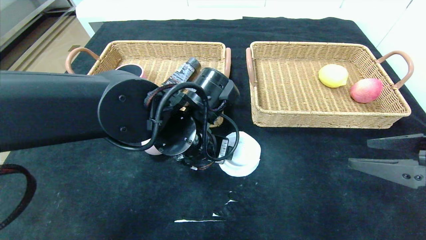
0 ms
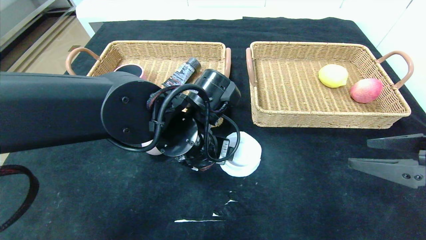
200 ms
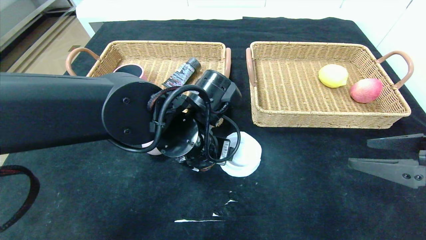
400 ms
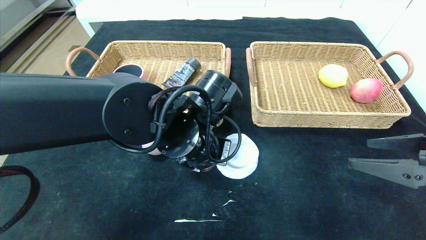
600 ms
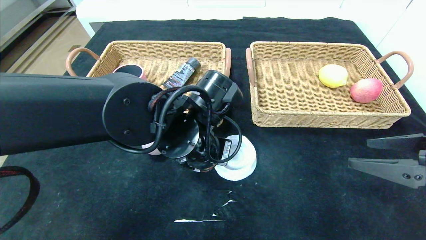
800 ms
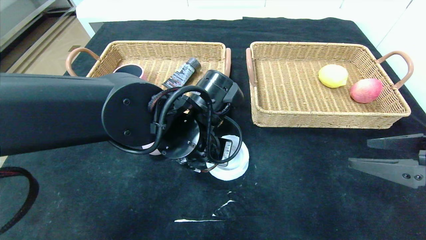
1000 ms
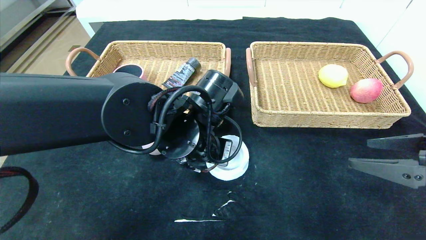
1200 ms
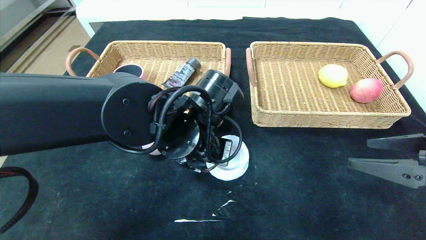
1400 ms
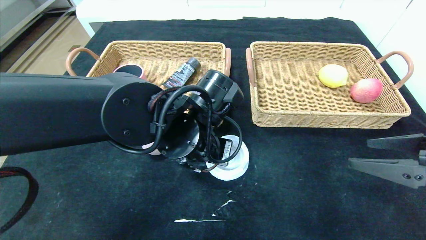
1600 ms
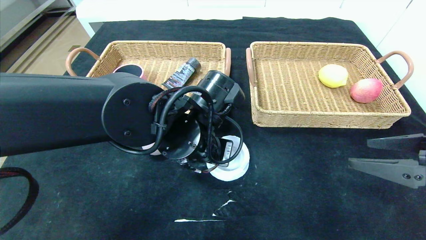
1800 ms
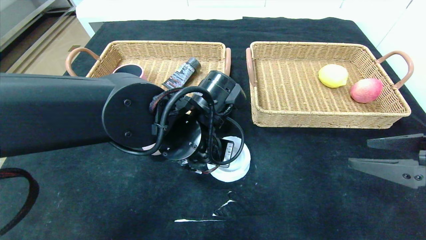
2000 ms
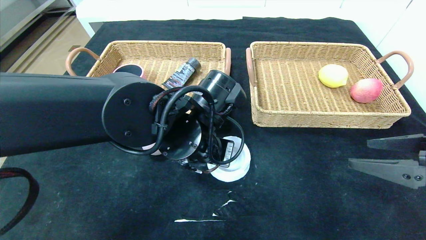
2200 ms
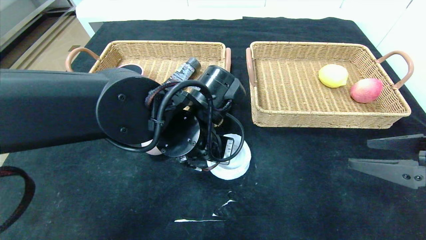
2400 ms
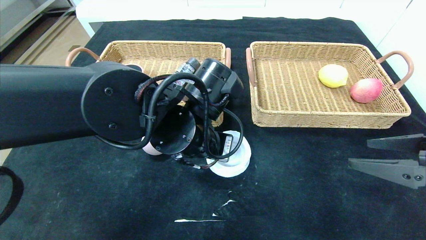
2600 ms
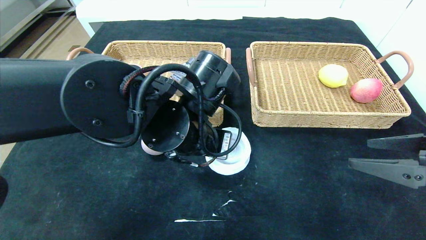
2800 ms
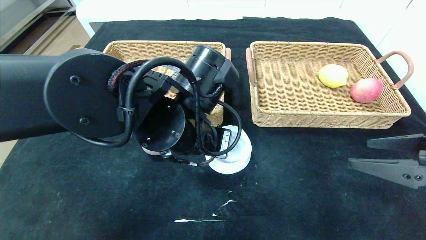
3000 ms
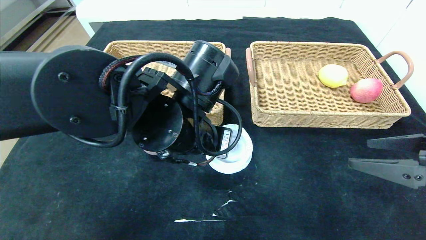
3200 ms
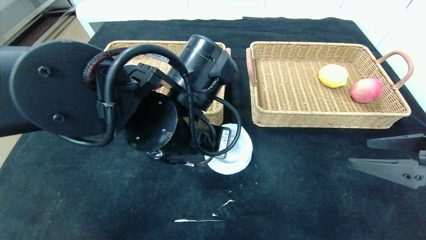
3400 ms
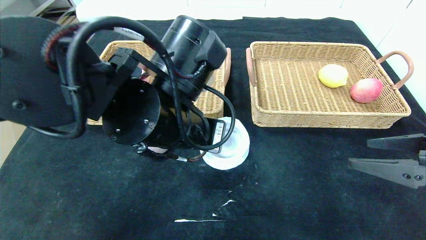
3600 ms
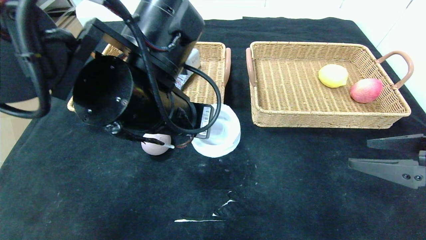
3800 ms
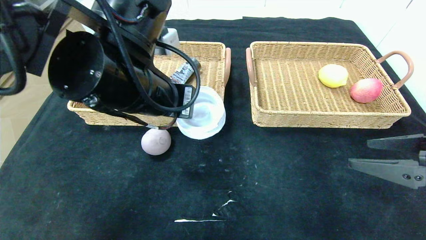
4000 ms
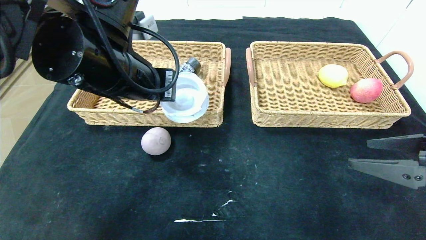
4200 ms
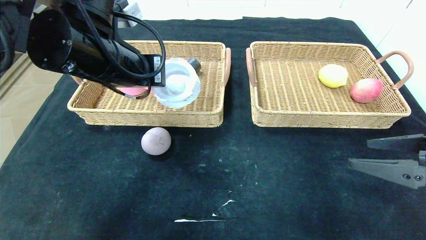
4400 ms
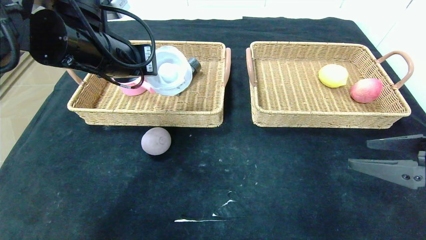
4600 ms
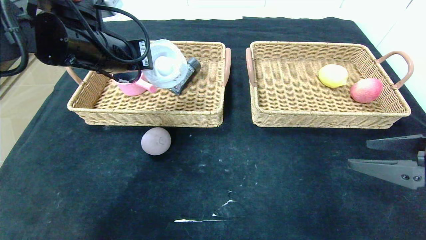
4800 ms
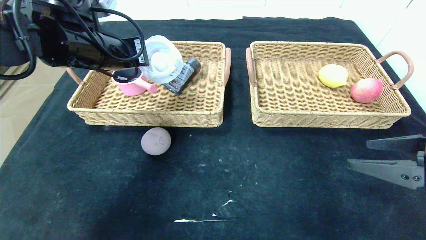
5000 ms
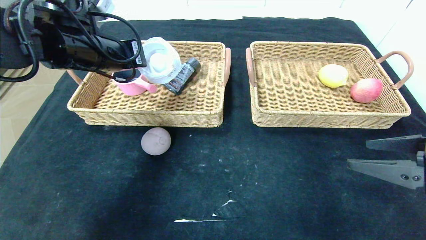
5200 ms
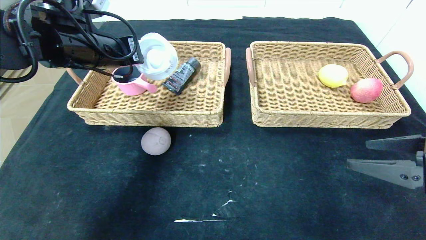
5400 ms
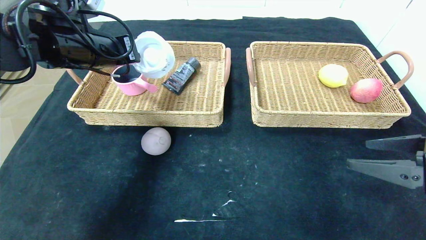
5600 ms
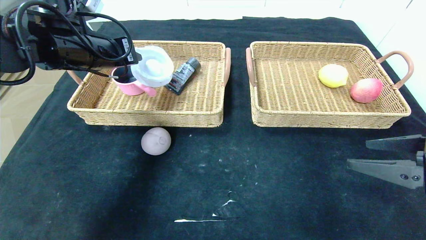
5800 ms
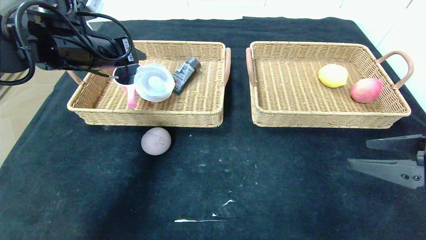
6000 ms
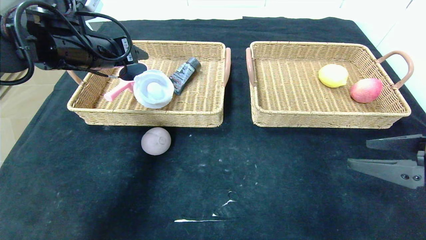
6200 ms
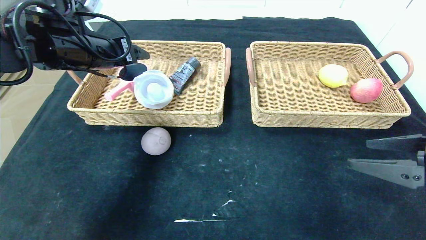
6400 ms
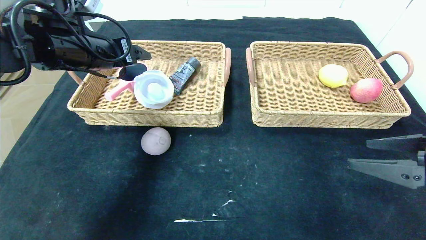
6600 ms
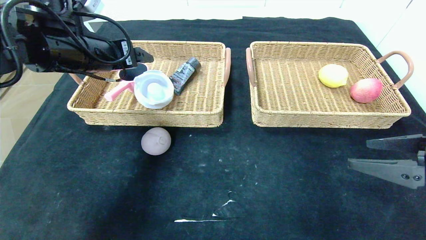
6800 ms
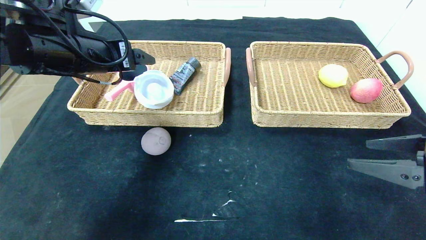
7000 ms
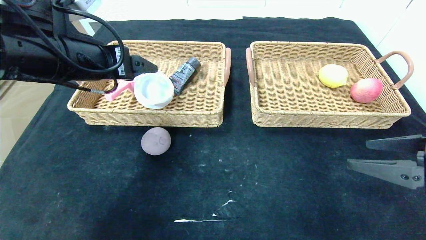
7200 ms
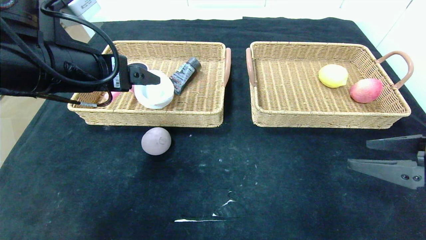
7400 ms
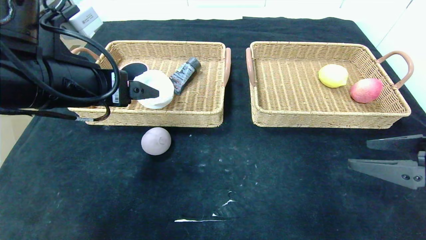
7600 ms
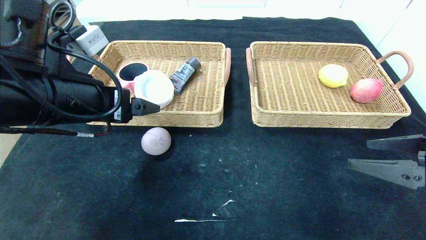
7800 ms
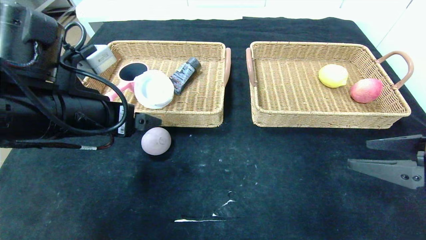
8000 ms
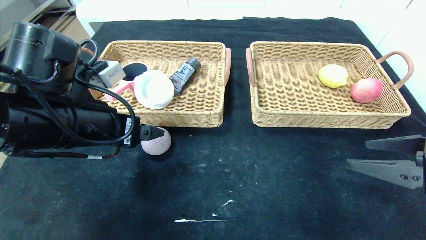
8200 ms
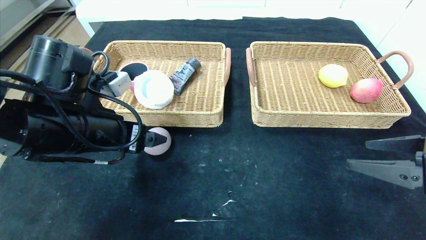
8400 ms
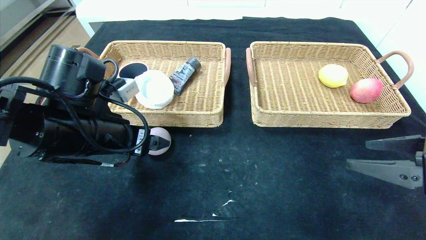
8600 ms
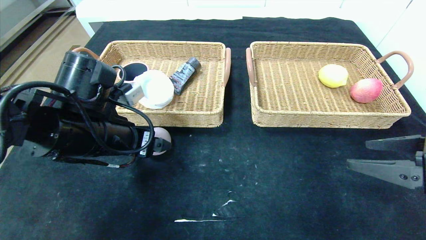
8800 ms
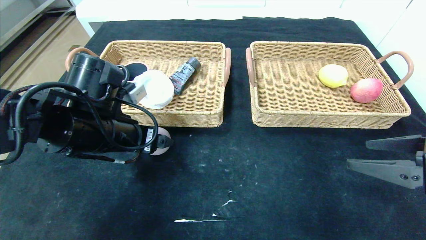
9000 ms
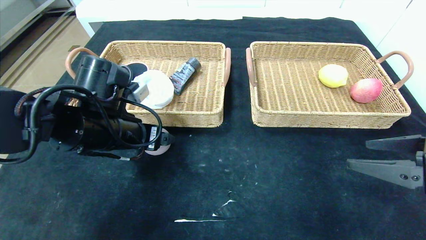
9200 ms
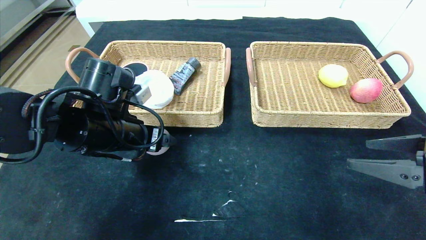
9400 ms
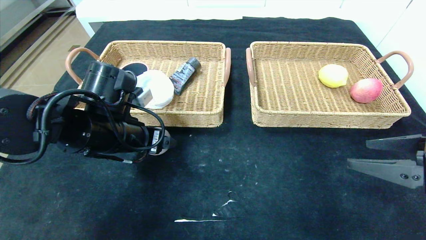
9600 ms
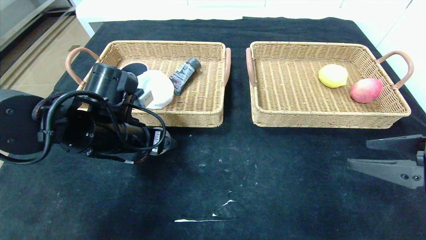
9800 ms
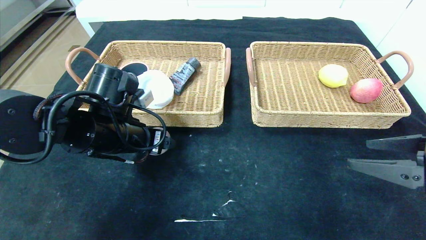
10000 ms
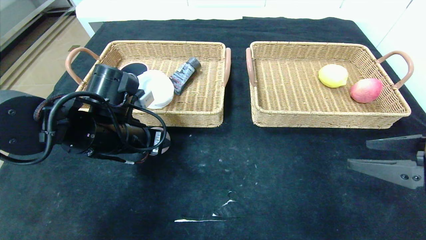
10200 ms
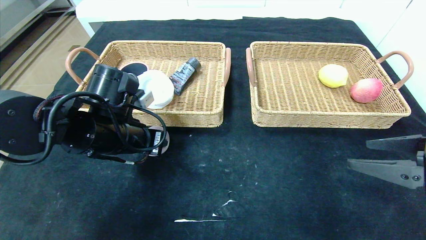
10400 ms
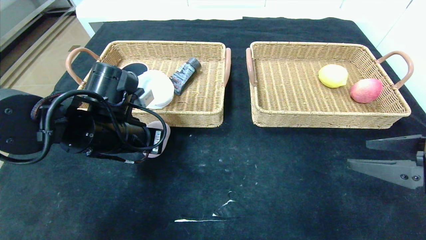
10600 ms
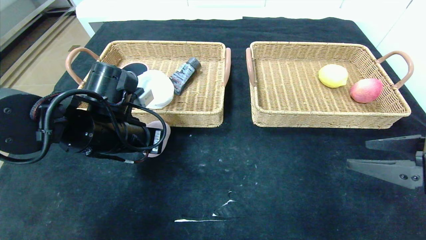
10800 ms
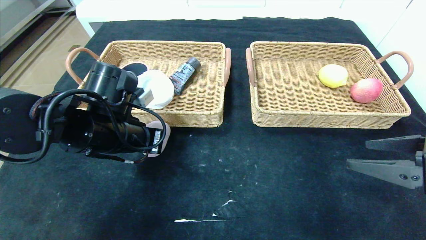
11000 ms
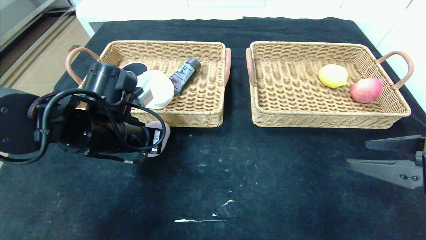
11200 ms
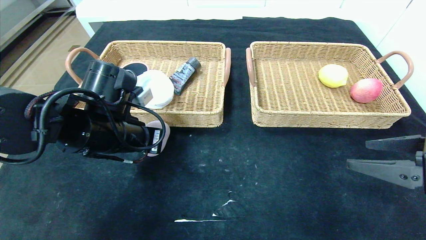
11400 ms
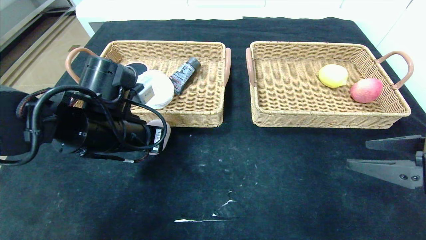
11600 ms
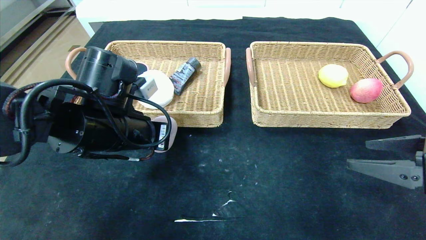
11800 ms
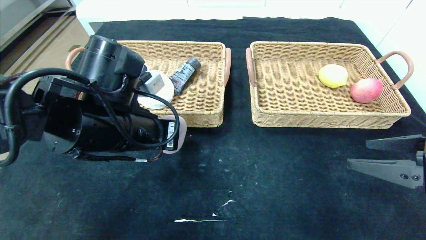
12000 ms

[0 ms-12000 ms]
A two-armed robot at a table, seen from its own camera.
Step, 0 ms to 8200 ms: Pick up the tape and put it in the left basket.
0 ms to 1600 ms: The left gripper closes its fingers.
1600 ms to 3000 ms: The grippers make only small movements.
3000 ms to 4400 ms: The left gripper is displaced to the left and upward by approximately 15 cm.
4400 ms to 6000 ms: The left gripper heads to the left and forward, covering approximately 10 cm, and opens.
6000 ms to 7600 ms: The left gripper heads backward, covering approximately 10 cm, and opens its fingers.
7600 ms to 9000 ms: The left gripper shifts about 10 cm downward.
9000 ms to 10400 ms: The left gripper closes its fingers.
10400 ms to 12000 ms: The left gripper changes place by some 5 cm.

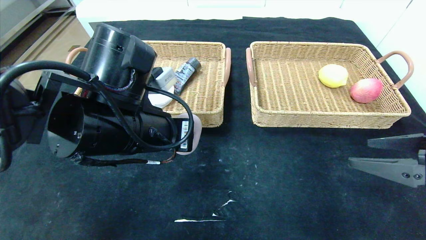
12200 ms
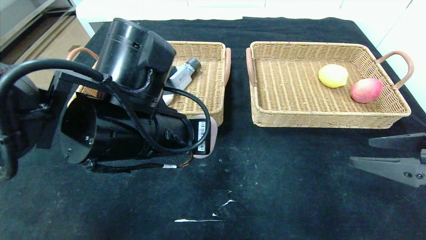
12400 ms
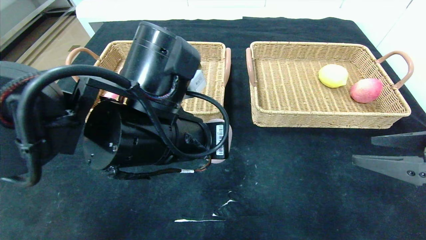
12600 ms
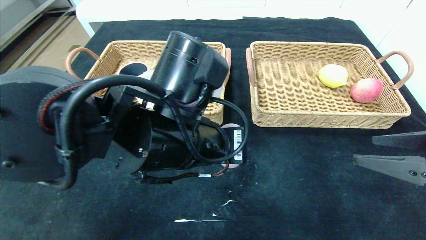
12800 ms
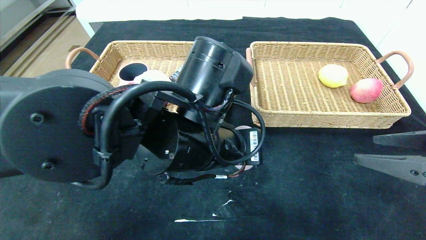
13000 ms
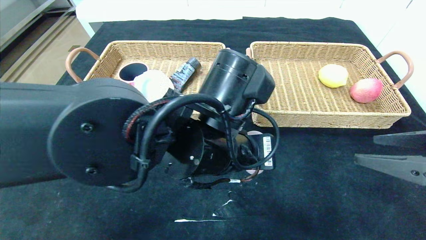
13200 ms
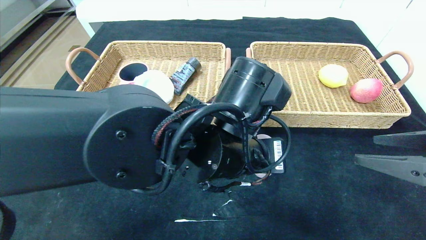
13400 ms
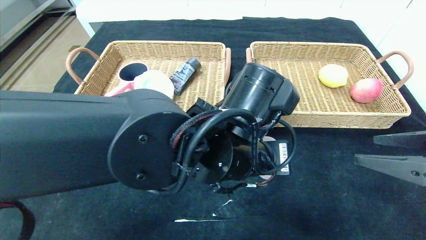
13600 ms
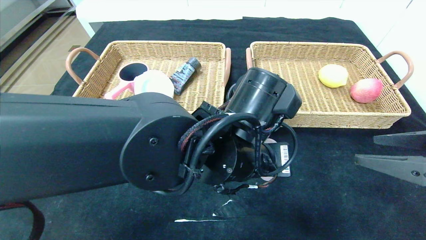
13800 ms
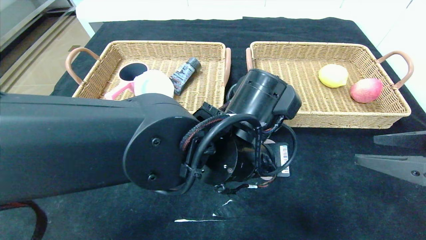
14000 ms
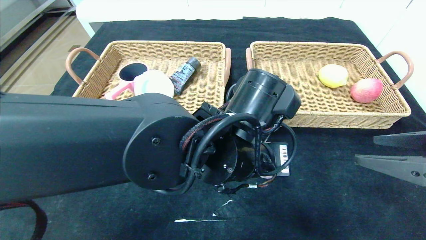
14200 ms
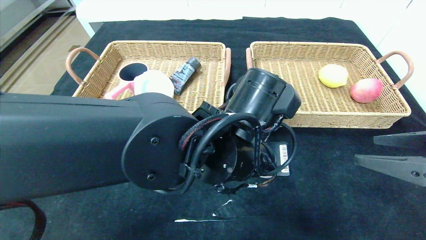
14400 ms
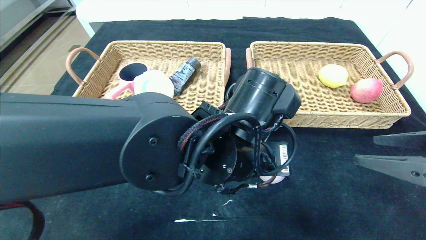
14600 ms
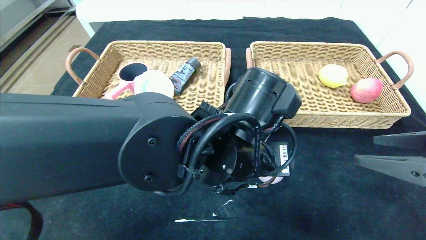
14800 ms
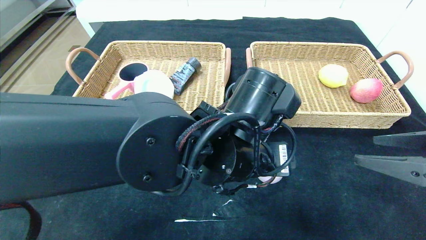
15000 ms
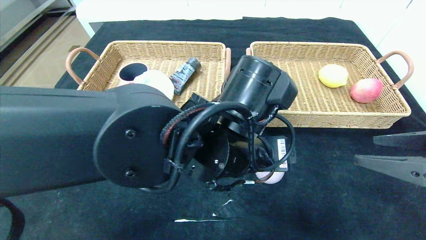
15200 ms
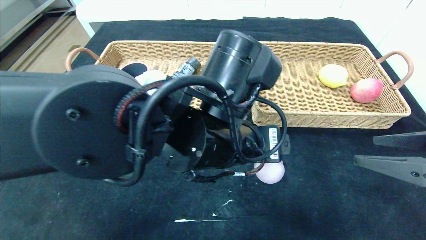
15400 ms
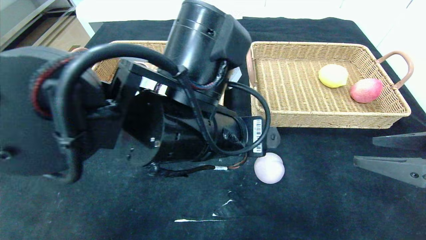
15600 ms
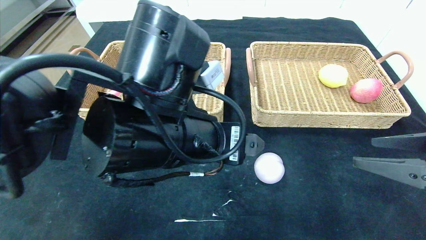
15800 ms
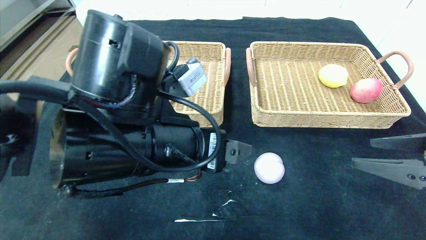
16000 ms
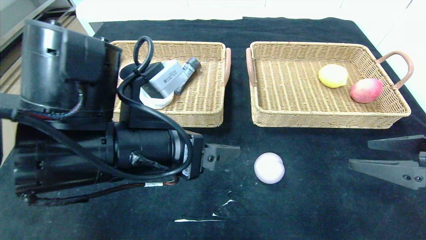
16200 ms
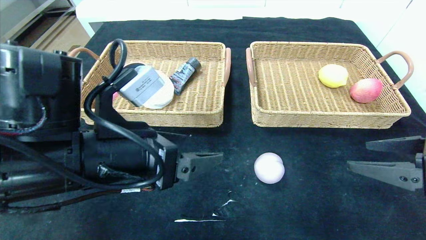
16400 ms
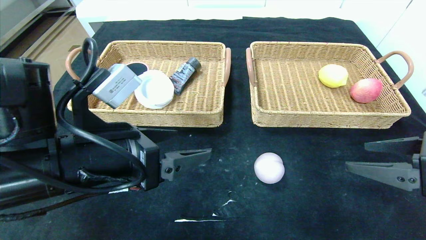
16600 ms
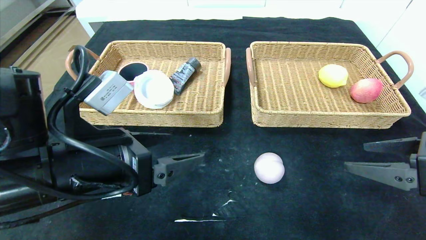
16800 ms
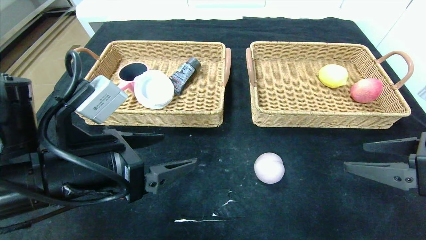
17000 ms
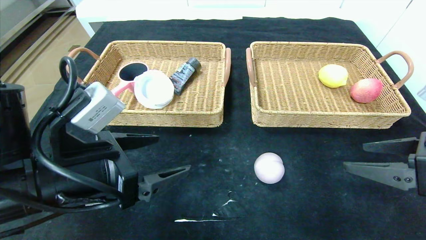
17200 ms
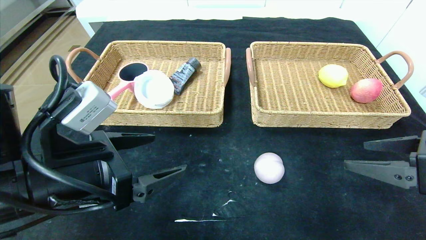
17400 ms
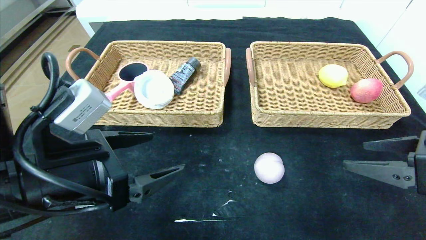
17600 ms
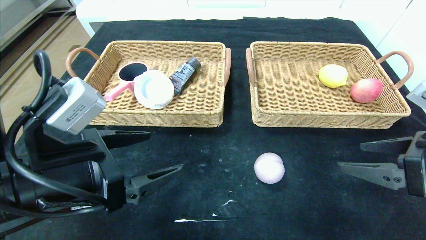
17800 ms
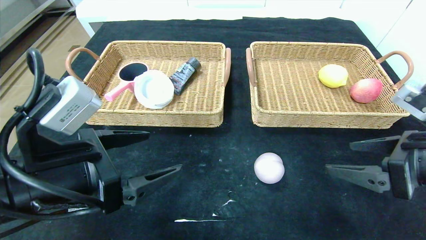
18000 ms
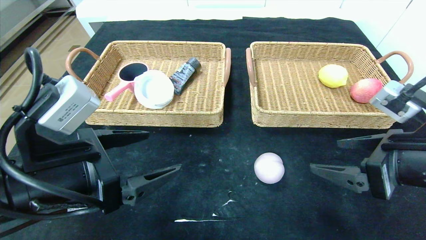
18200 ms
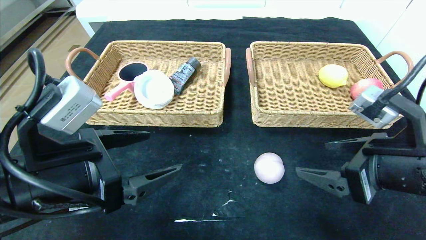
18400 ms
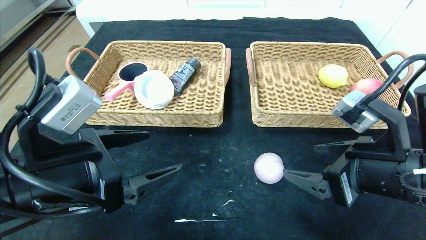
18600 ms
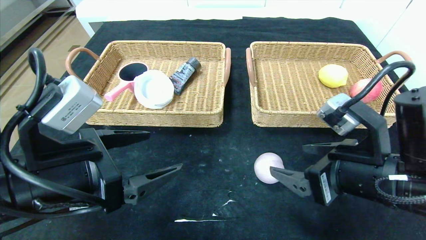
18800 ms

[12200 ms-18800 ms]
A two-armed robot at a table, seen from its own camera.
Step, 12200 ms to 15600 ms: Place the peach in the center of the table.
12200 ms to 13800 ms: The left gripper is displaced to the right by about 15 cm.
13800 ms to 15400 ms: The left gripper opens.
15400 ms to 17200 ms: The left gripper goes about 20 cm to the left.
17200 ms to 18800 ms: The right gripper heads to the left, covering approximately 10 cm.
